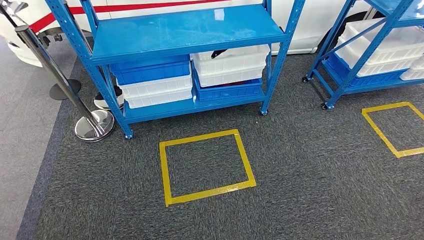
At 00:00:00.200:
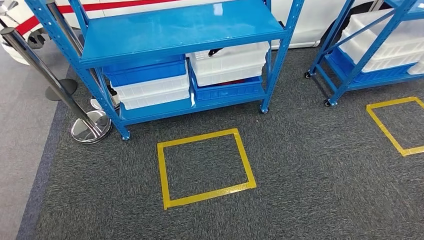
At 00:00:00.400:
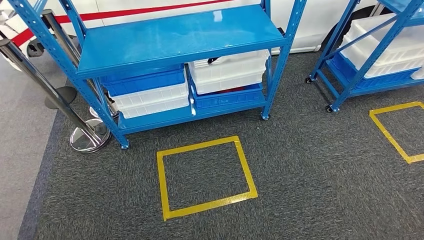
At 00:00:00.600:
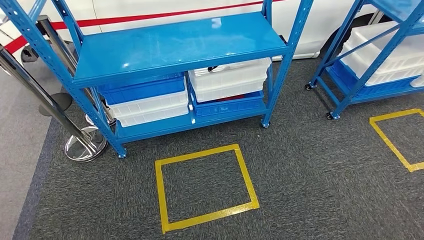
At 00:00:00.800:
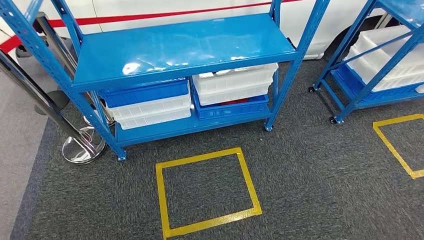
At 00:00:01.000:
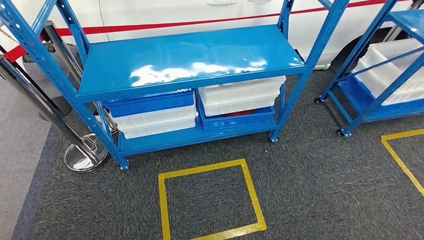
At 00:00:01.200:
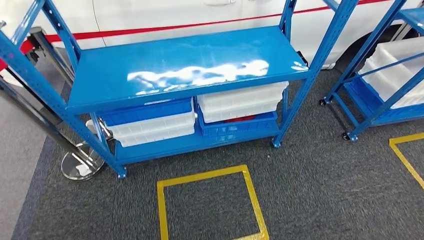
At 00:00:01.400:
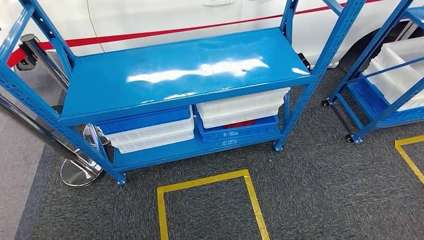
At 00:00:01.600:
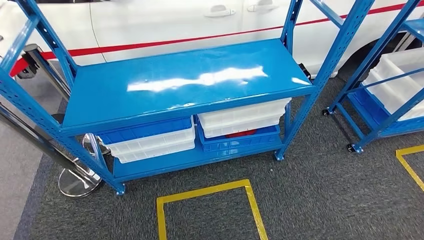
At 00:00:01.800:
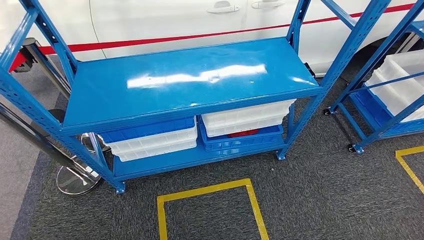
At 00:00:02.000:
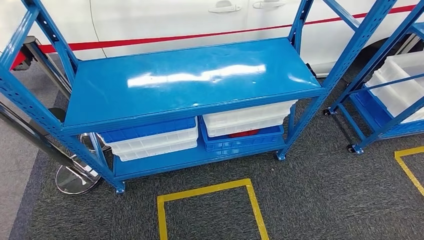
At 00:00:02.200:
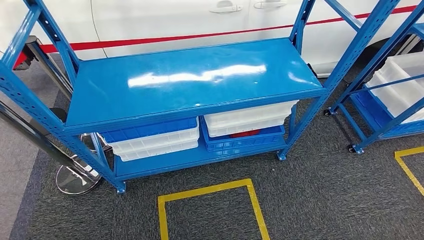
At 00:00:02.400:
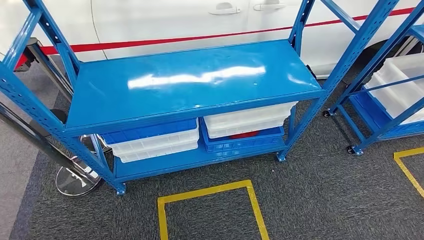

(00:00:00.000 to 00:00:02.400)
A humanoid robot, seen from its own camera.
Step, 00:00:00.000 - 00:00:02.200: Move to the initial position of the shelf.
